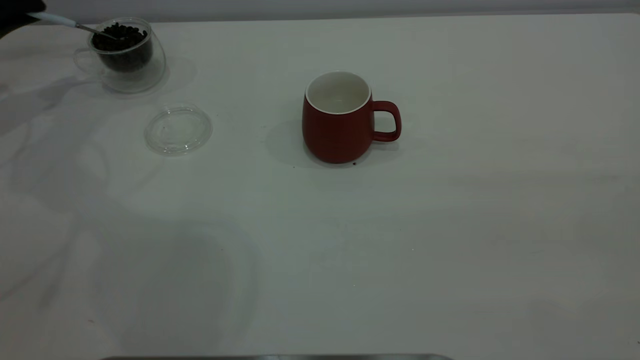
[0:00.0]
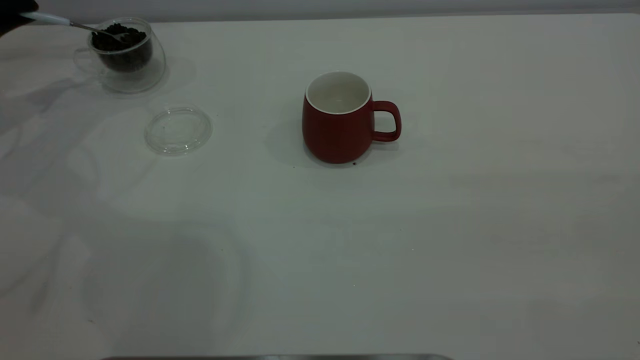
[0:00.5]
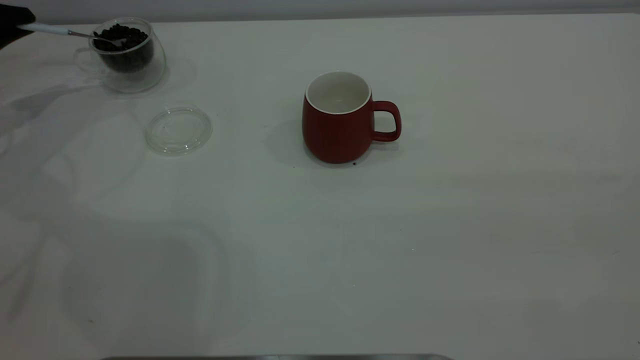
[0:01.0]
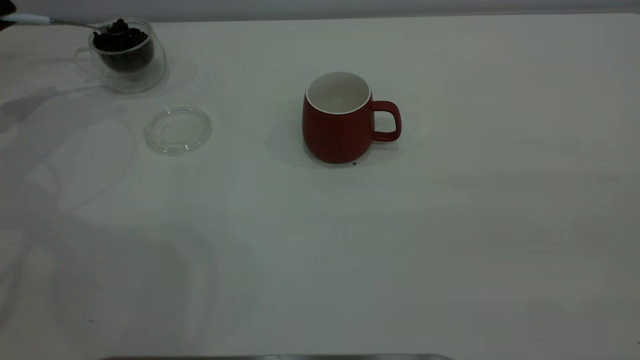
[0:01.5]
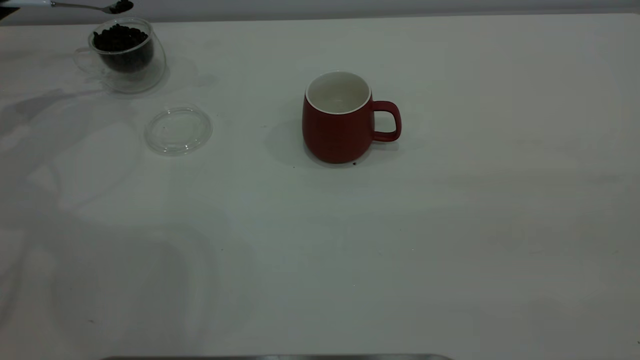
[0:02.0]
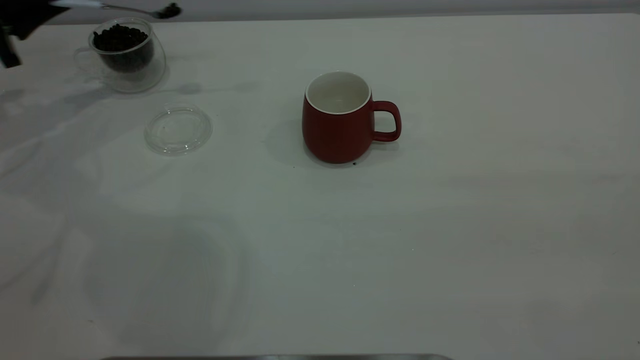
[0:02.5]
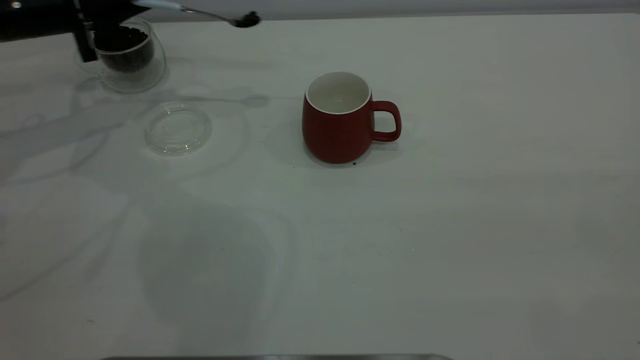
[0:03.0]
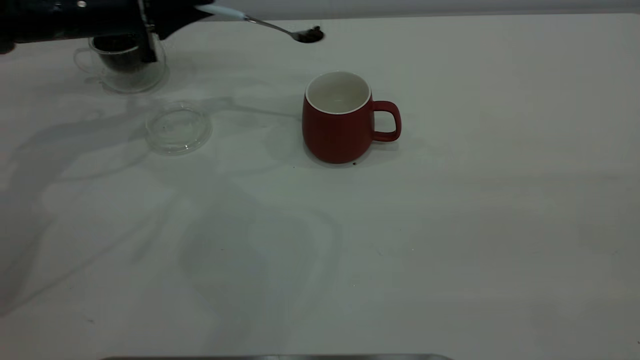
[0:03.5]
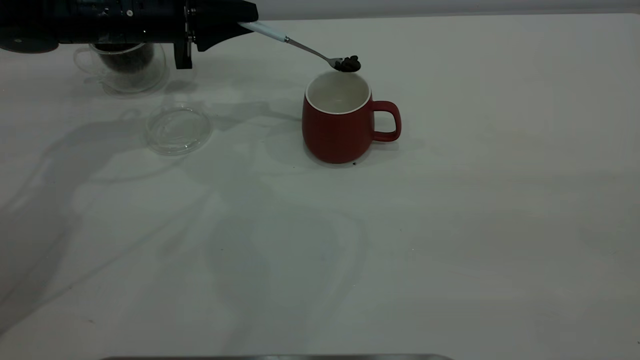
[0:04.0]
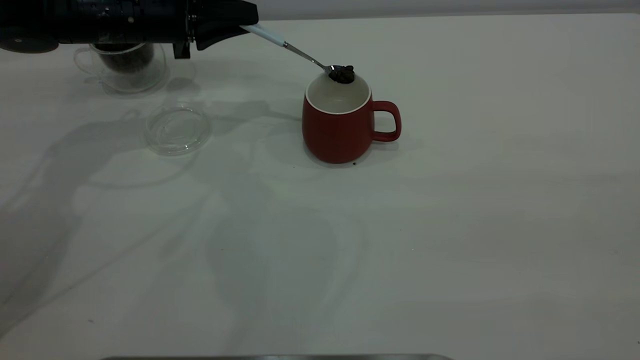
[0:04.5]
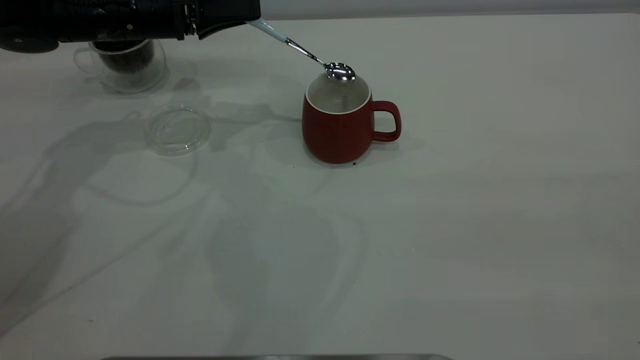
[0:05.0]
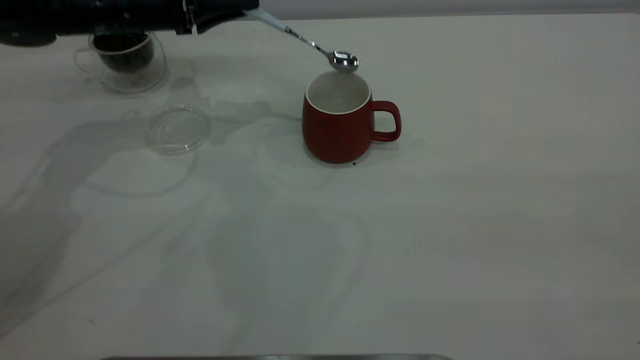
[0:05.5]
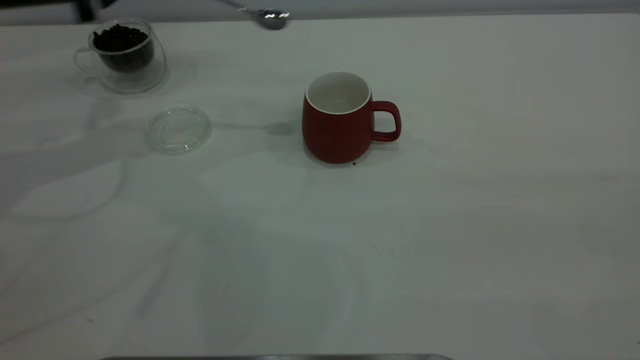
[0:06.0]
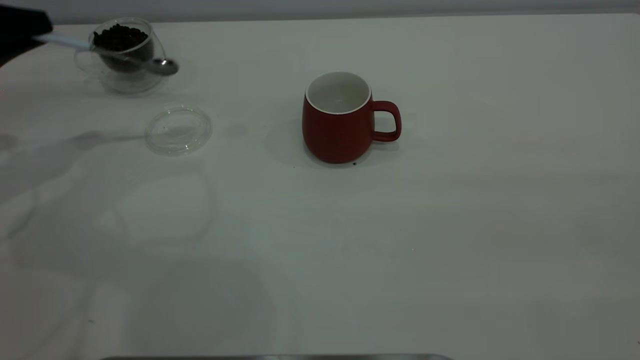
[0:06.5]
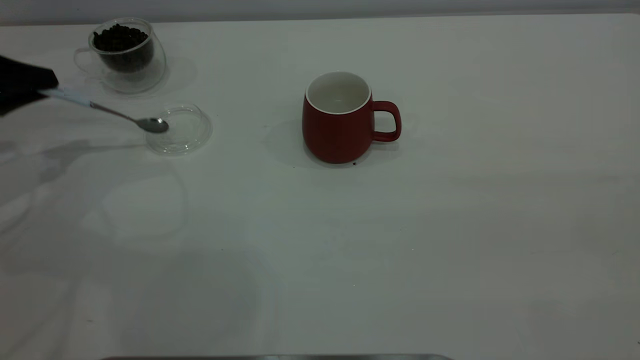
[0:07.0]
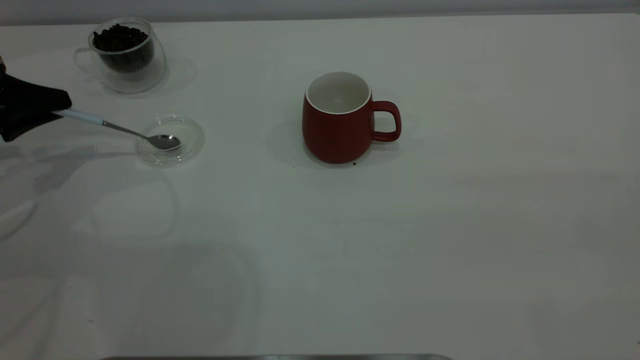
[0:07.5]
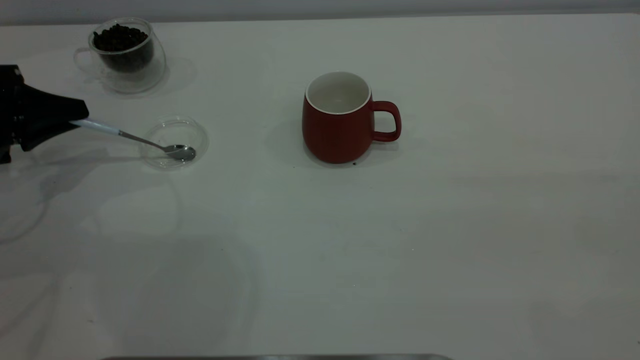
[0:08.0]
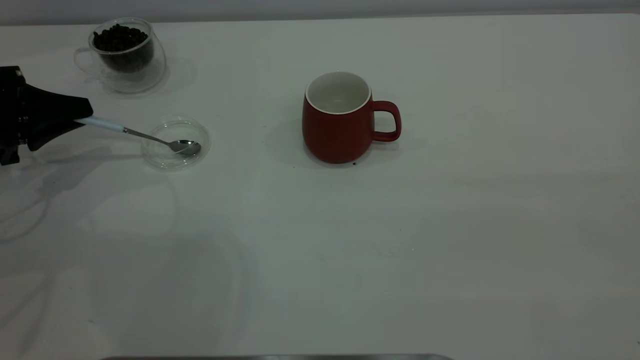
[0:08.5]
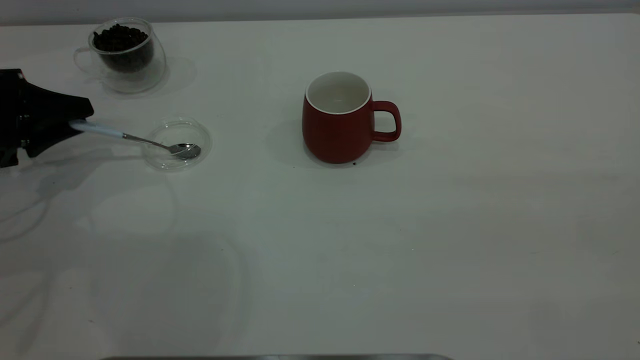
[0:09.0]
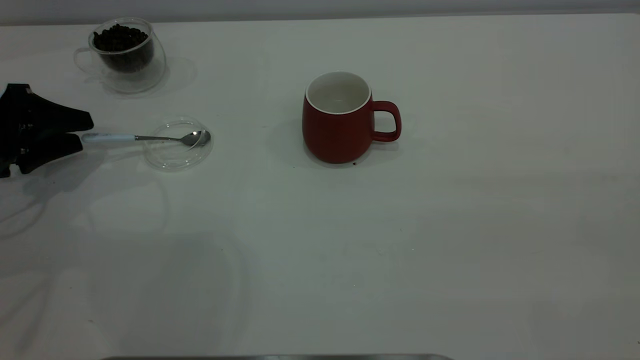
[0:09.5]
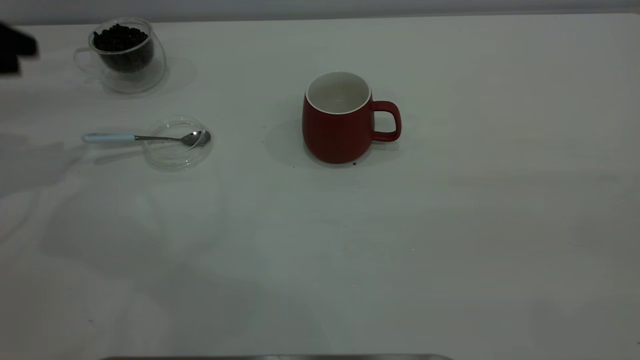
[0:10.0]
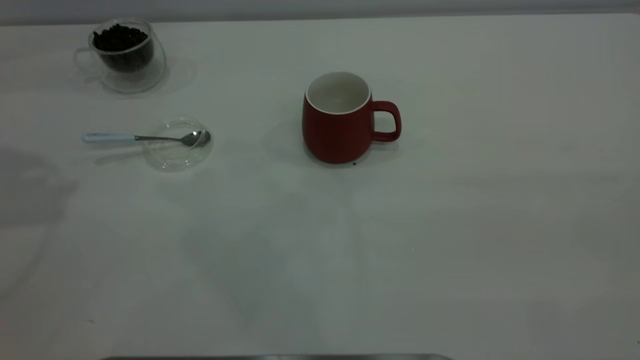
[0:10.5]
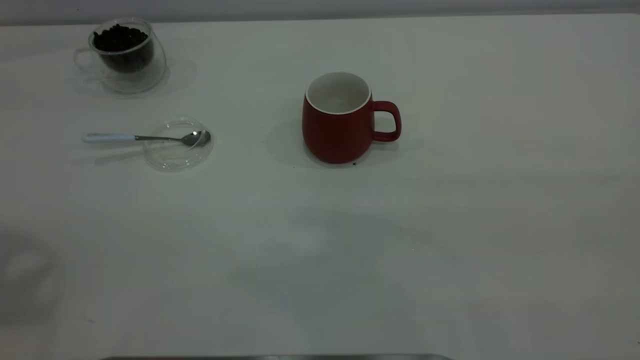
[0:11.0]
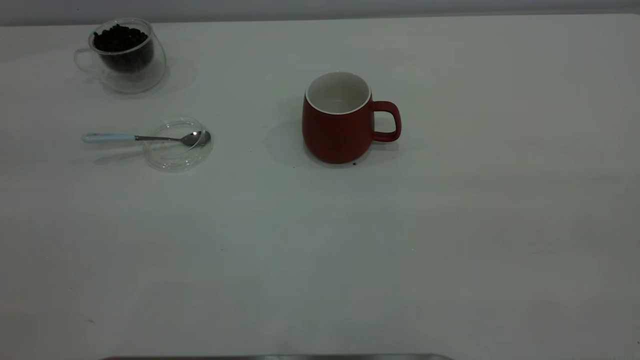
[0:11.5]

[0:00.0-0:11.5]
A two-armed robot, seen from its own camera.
Task of the whole recording: the right gripper place the red cup in the center of the table, the left gripper take the blue spoon from the cup lid and scoop out the coffee beans from the coffee cup and put them into the red cup, the left gripper put the spoon back into the cup lid.
Step, 0:00.0 to 0:05.5: Scoop a spoonful of beans into the cup.
Step, 0:06.0 to 0:09.5: Place the spoon back in its original place.
0:02.0 to 0:04.0: The left gripper heads to the right, covering roughly 25 cm.
0:04.0 to 0:06.0: The left gripper goes approximately 10 cm to the left, upward and backward.
0:06.0 to 0:07.5: The left gripper travels to the left, downward and backward by about 15 cm.
0:07.5 to 0:09.5: The left gripper opens its fingers.
0:09.5 to 0:11.5: The left gripper is displaced upward and backward by about 50 cm.

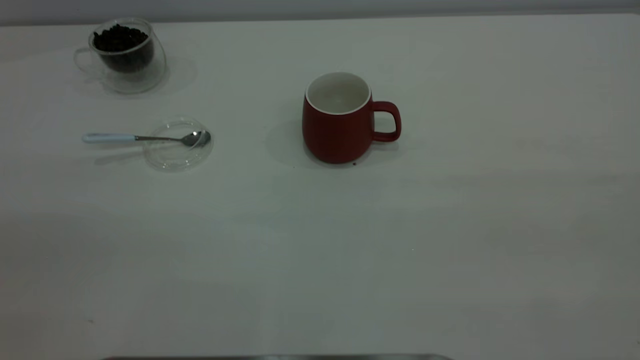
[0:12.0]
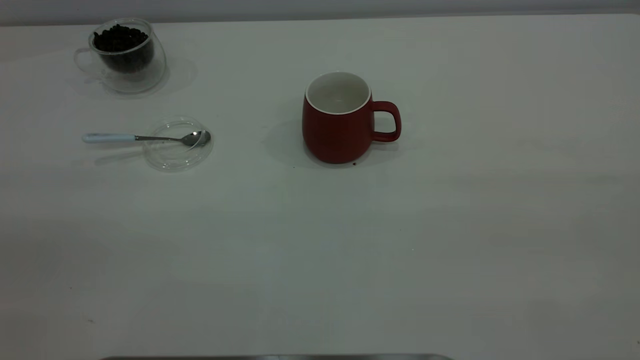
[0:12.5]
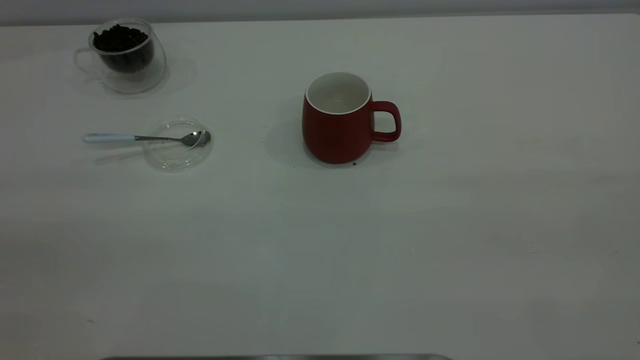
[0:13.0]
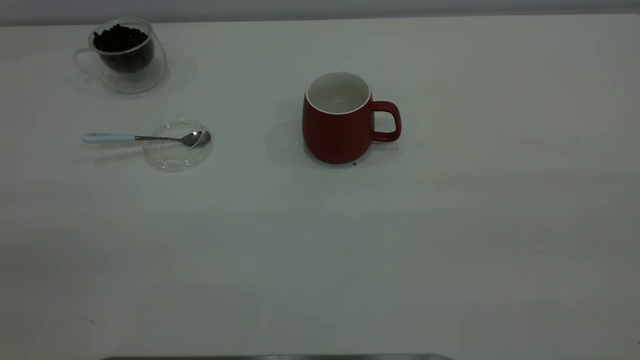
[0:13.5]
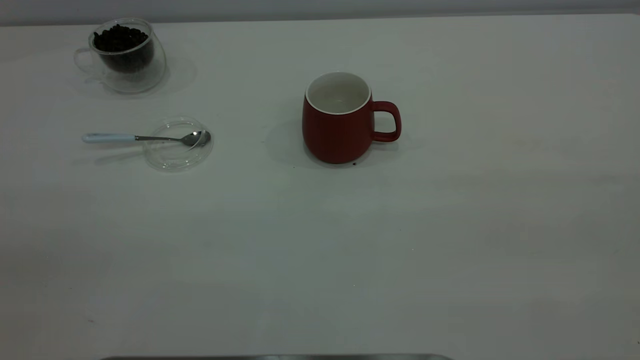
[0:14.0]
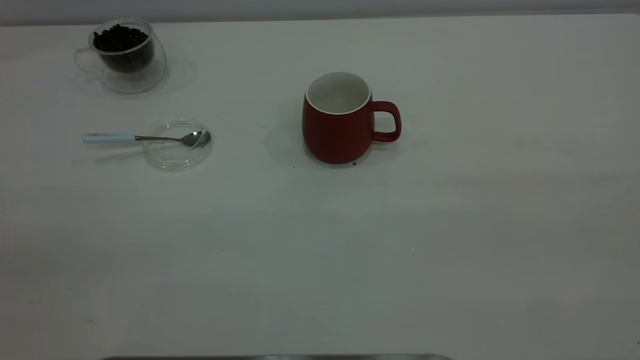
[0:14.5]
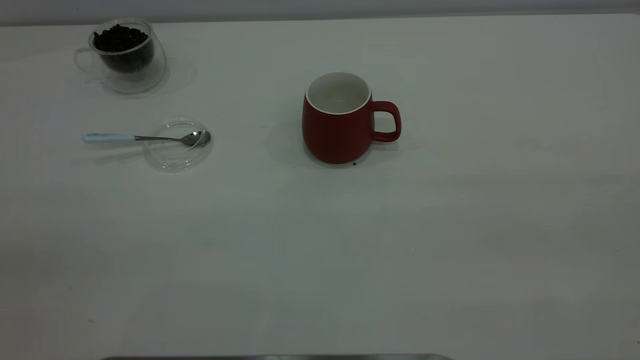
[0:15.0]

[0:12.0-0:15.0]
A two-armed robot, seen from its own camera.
Task of the whole recording: the right gripper place the red cup in the center of the table, the left gripper take the blue spoon from the cup lid and scoop out the coffee beans from the coffee cup and put them into the red cup, the left gripper put the spoon back into the cup lid.
0:13.5 to 0:15.0: The two grippers keep their place.
